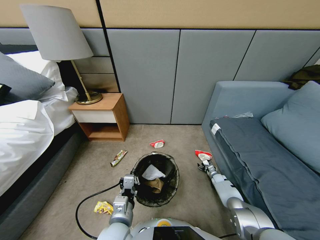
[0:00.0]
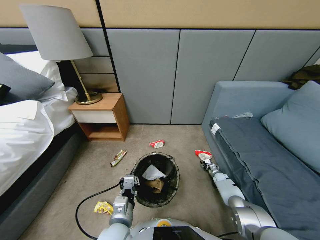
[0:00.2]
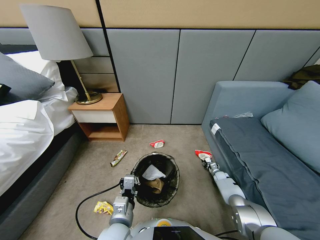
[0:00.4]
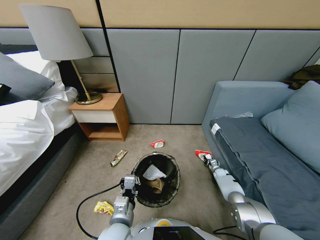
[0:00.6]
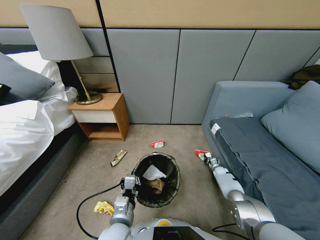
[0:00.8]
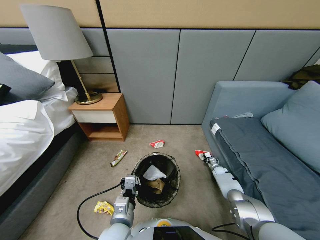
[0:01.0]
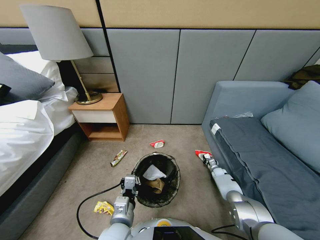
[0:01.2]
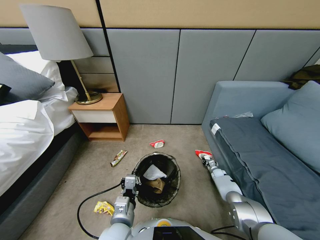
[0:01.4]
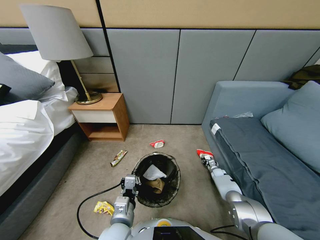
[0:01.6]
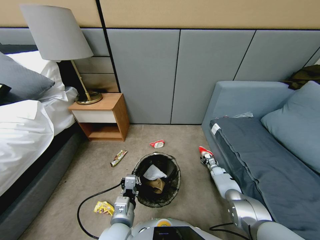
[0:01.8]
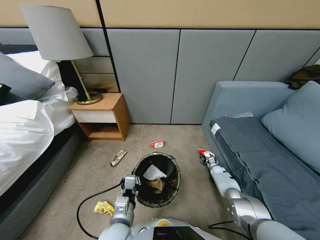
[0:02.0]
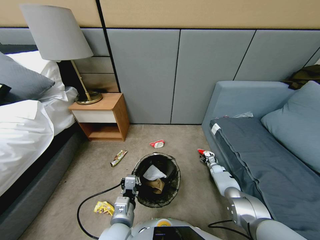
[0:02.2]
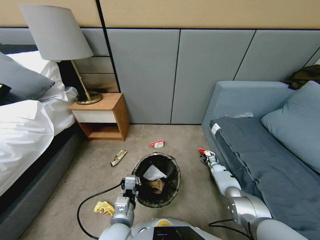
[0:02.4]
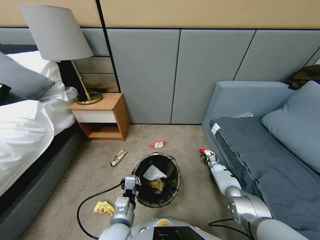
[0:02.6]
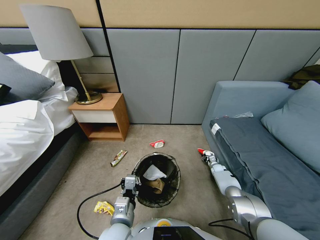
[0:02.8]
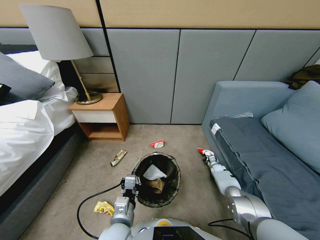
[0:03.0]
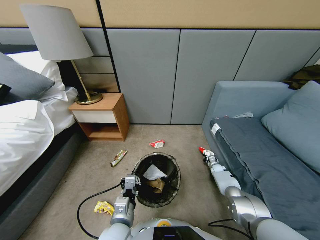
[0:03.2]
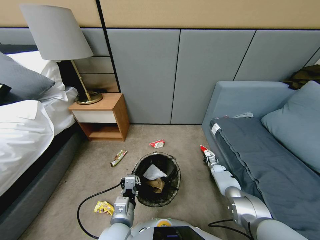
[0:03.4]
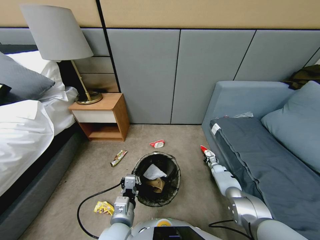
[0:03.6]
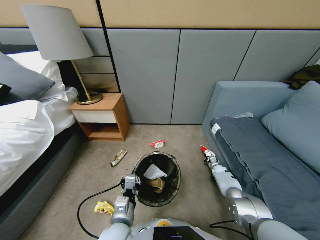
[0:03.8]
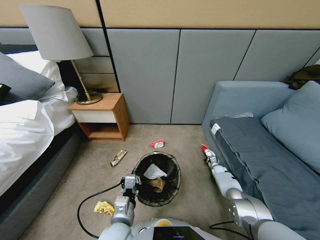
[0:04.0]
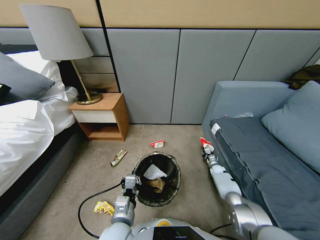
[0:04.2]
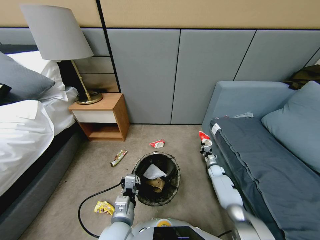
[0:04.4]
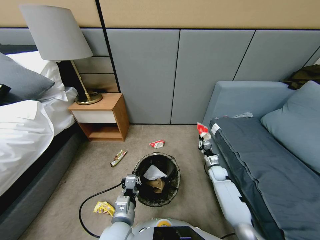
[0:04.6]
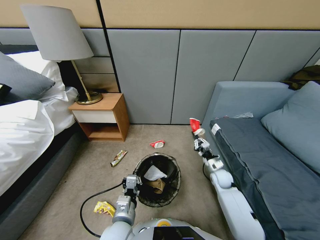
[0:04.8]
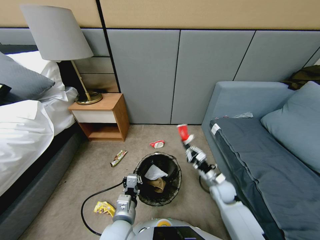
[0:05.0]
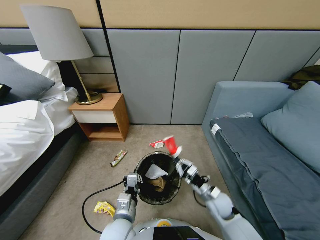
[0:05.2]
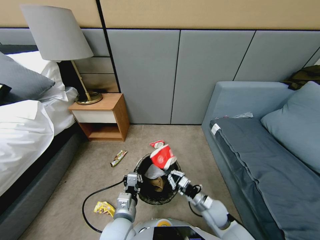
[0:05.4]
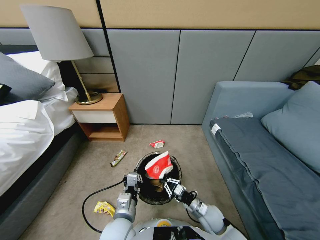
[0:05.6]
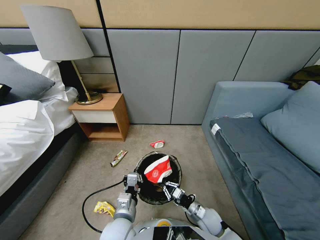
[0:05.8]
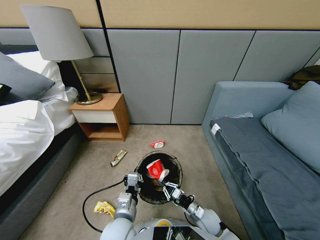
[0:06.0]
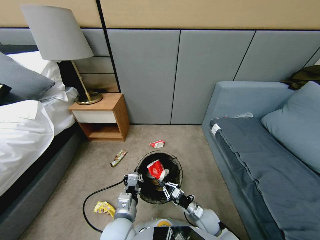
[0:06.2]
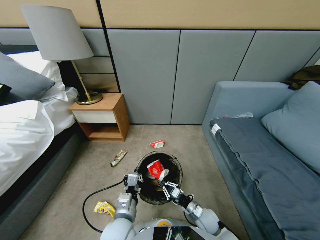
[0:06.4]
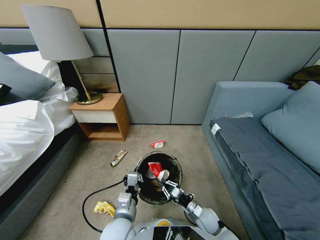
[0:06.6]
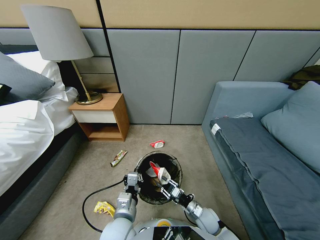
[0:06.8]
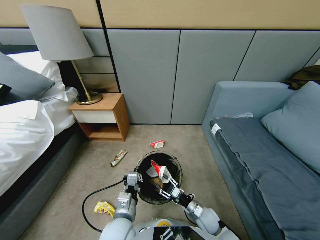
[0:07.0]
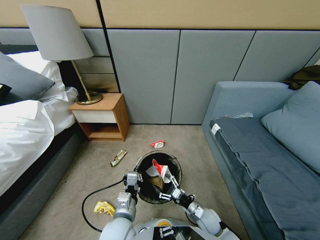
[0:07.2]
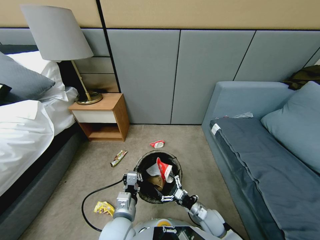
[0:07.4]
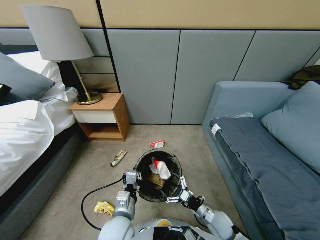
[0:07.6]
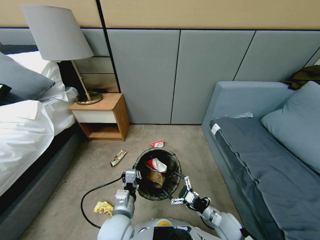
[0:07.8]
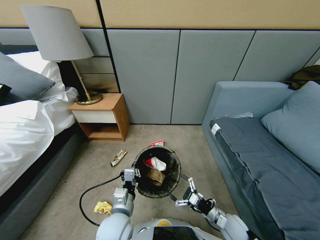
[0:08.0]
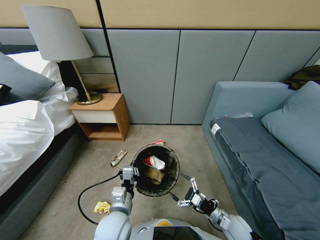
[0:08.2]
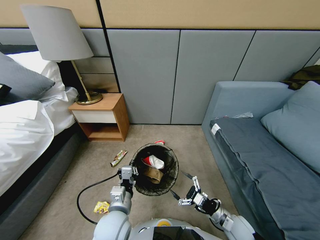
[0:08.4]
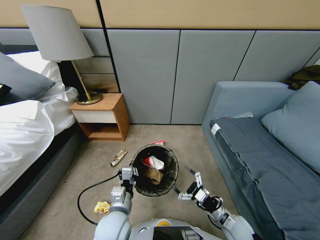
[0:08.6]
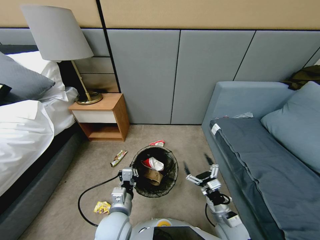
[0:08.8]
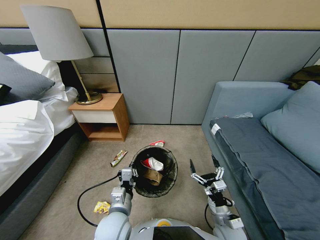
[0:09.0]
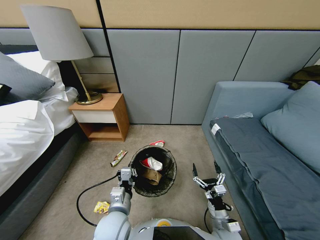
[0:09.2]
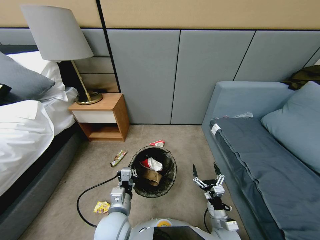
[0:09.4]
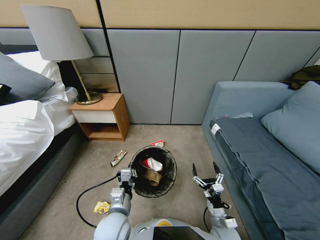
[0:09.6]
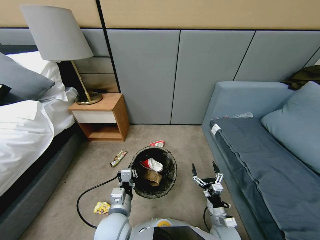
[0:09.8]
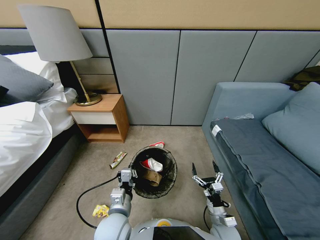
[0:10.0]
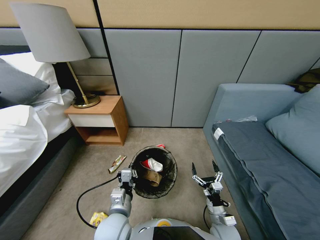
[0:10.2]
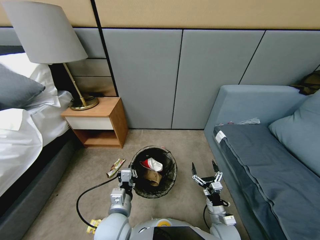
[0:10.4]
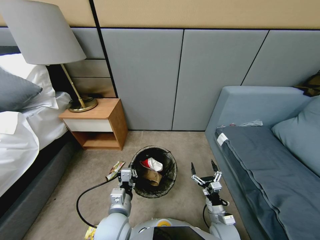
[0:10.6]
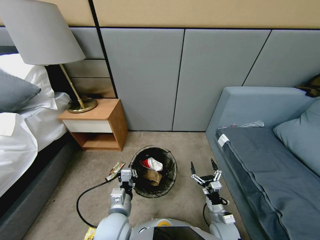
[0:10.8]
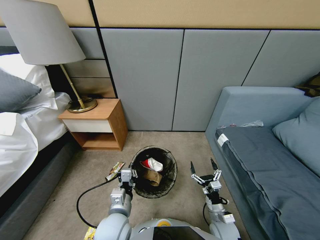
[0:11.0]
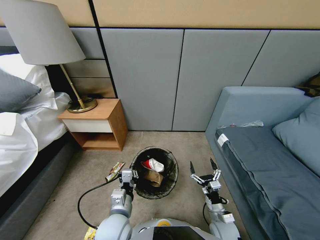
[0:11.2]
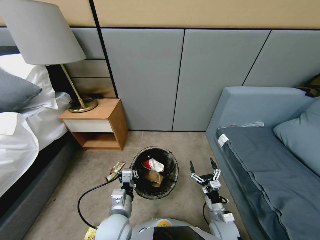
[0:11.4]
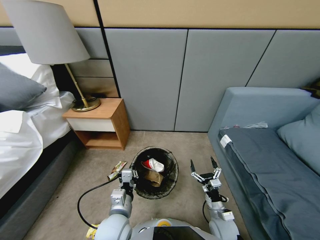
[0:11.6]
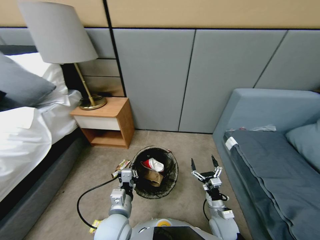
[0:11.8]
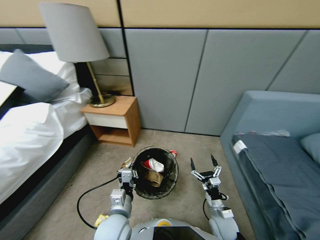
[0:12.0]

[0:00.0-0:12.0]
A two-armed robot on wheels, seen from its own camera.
Task of the whole recording: Pick up the trash bin, then pick up the garbage from the floor and place it into the trash bin.
0:00.0 to 0:01.6: The right gripper closes, then opens again.
0:01.6 to 0:03.0: The right gripper closes its fingers.
0:03.0 to 0:04.4: The right gripper shifts some 10 cm upward, to the left and backward.
0:04.4 to 0:06.0: The right gripper moves backward and to the left, some 25 cm.
0:06.0 to 0:07.6: The right gripper heads to the right, covering roughly 5 cm, and opens.
0:09.0 to 0:10.4: The grippers make only small movements.

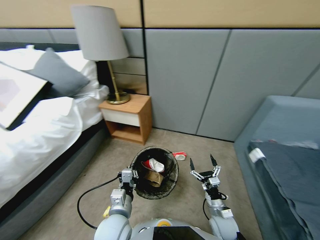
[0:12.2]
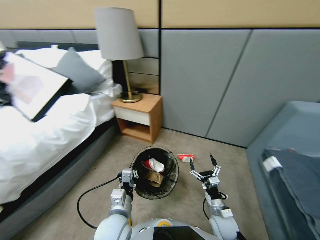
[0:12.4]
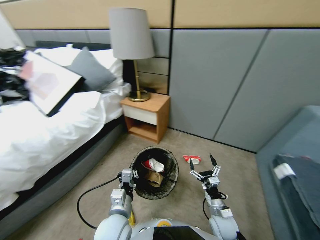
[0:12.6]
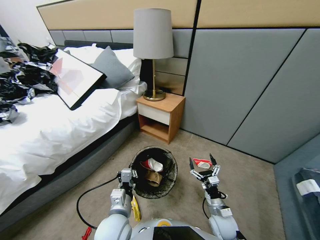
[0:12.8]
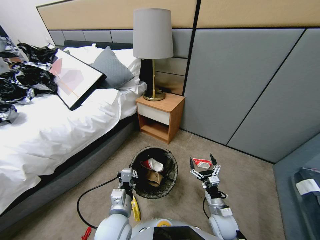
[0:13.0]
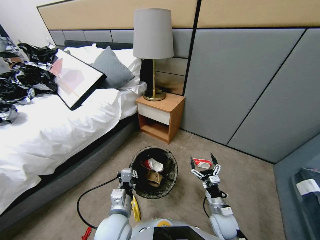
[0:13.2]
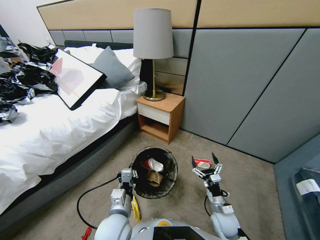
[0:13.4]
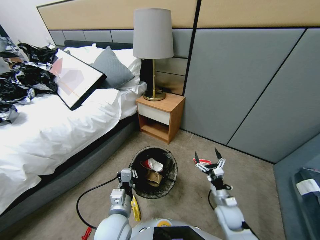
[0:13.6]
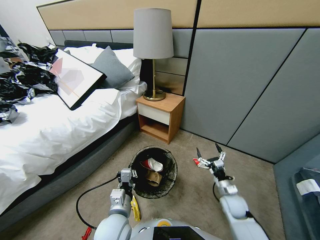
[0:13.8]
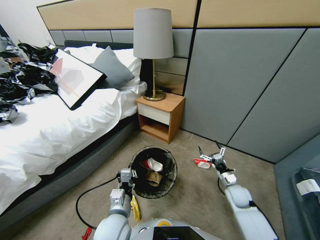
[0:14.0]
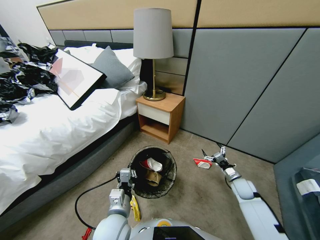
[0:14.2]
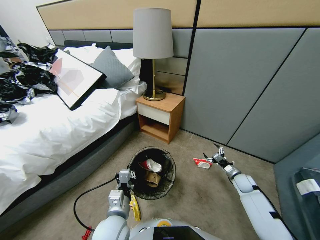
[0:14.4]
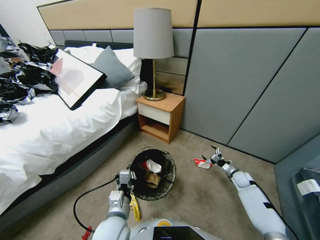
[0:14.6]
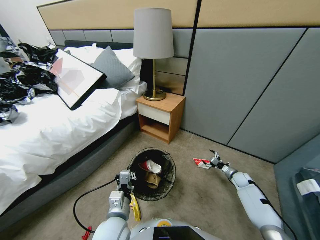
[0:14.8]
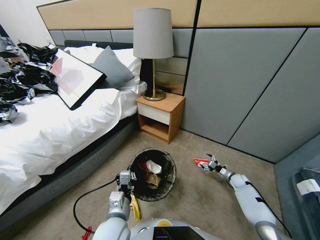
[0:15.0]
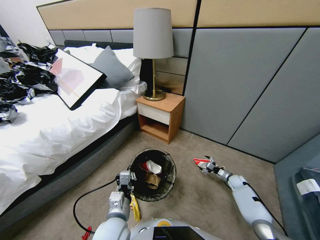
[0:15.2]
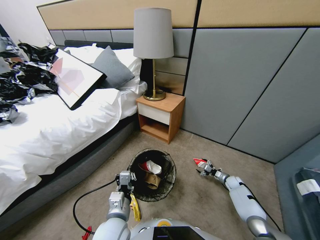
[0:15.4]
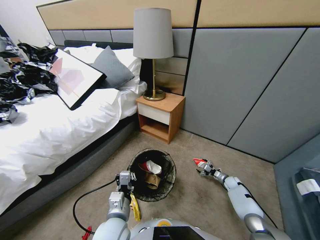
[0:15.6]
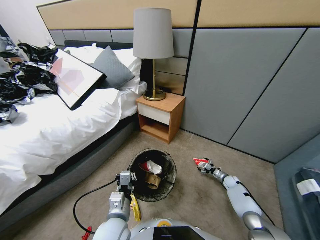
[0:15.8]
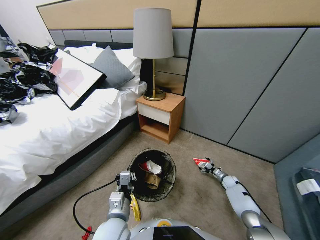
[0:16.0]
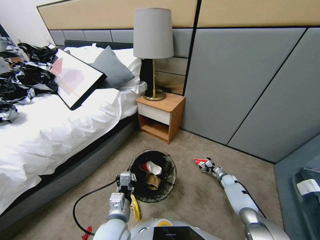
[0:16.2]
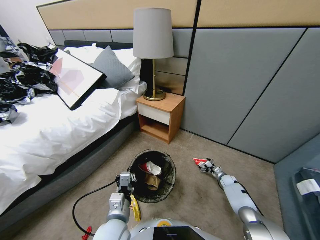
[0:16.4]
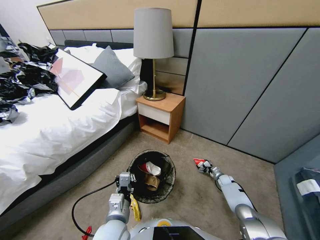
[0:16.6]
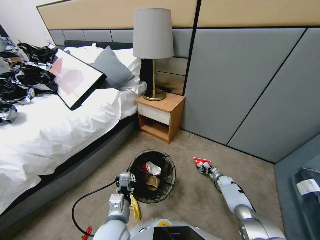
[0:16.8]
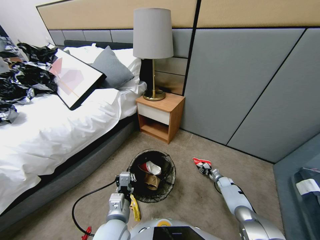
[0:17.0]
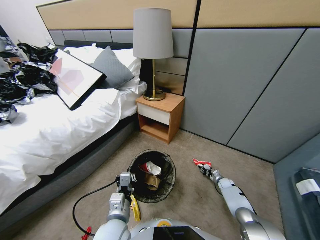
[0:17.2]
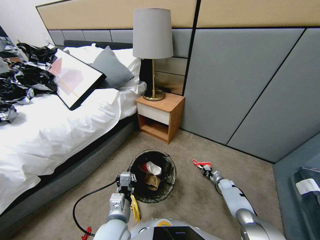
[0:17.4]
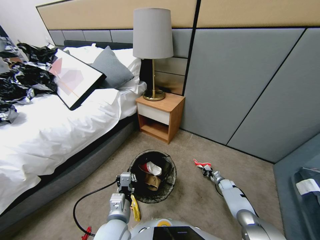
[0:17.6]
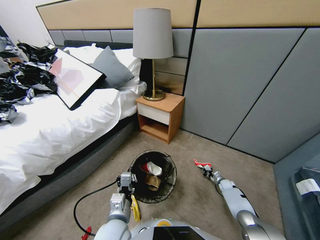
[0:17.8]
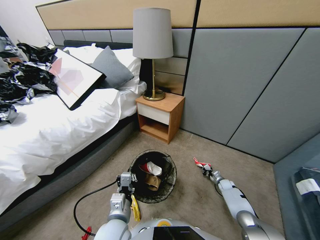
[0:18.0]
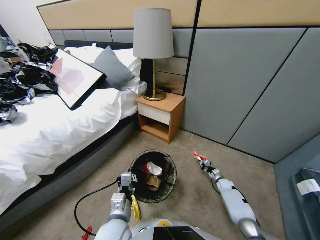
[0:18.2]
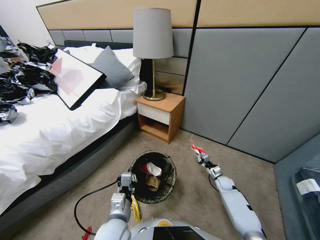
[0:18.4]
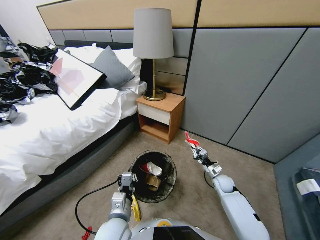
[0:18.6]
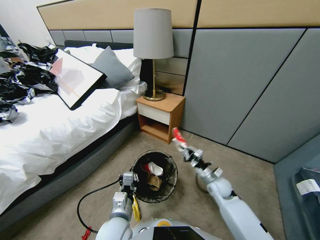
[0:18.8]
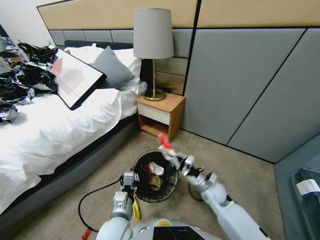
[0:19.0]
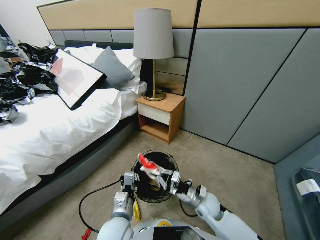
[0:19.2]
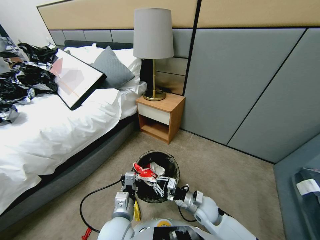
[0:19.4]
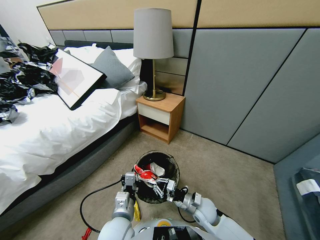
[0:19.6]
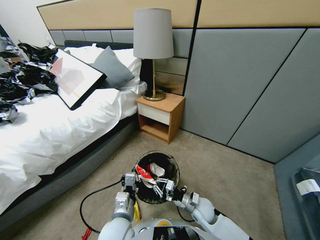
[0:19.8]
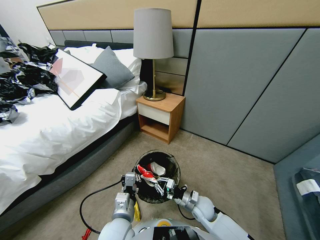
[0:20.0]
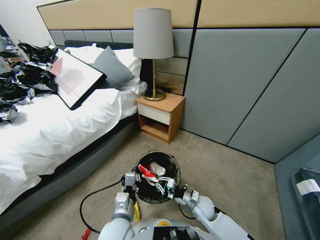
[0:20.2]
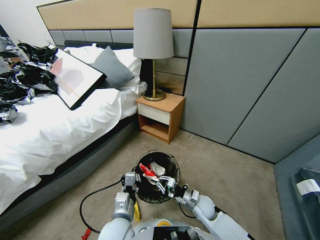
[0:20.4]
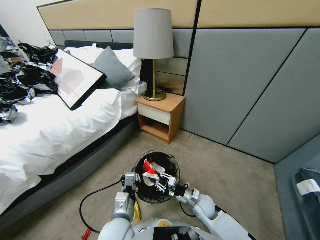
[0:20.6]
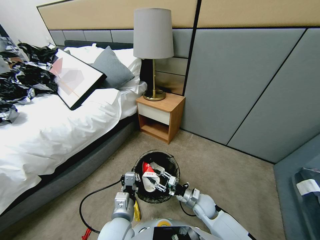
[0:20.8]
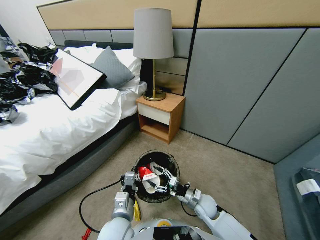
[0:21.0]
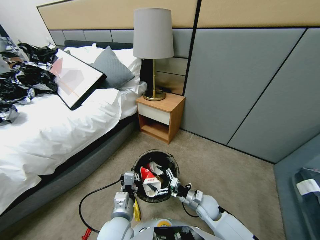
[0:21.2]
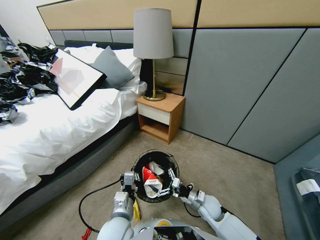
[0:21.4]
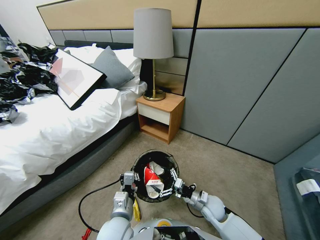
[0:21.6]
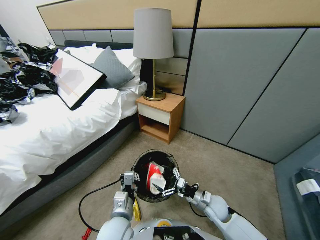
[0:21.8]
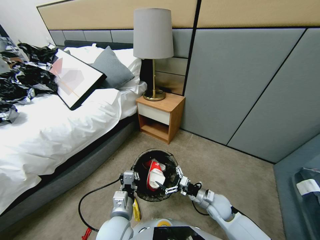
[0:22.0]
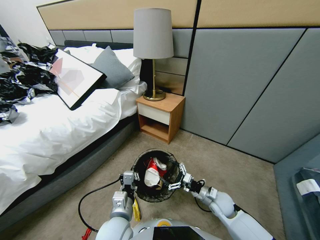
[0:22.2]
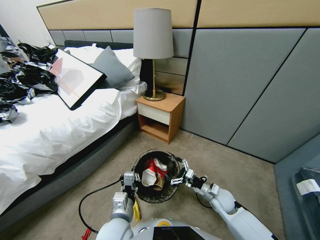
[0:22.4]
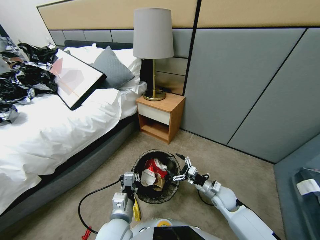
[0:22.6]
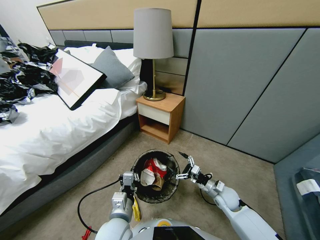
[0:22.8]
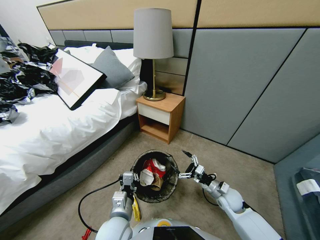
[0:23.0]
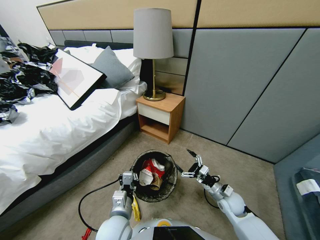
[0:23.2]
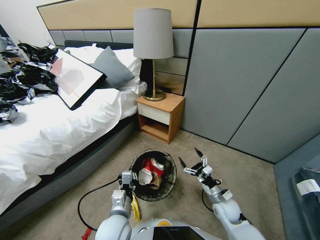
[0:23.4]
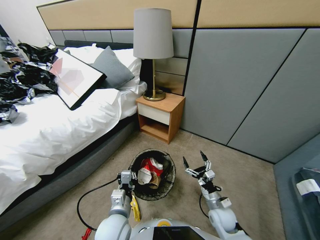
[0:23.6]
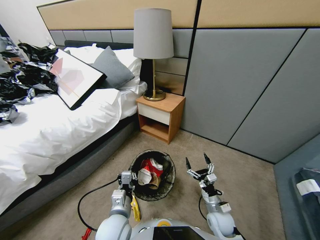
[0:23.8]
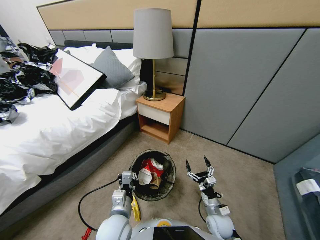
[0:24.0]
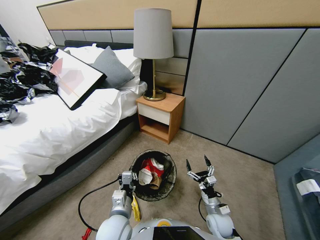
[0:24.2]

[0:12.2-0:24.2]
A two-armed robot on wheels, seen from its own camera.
Task of the whole recording: Pick up the trash bin, then pick up the garbage from the floor and place it into the trash bin.
0:12.2 to 0:13.8: The right gripper heads to the right and forward, covering roughly 15 cm.
0:13.8 to 0:15.2: The right gripper is displaced downward, to the right and forward by roughly 20 cm.
0:15.2 to 0:16.6: The right gripper changes place by roughly 5 cm.
0:16.6 to 0:18.2: The right gripper closes its fingers.
0:18.2 to 0:19.8: The right gripper travels to the left, backward and upward by roughly 30 cm.
0:19.8 to 0:21.2: The right gripper opens.
0:21.2 to 0:22.6: The right gripper goes some 10 cm to the right.
0:22.6 to 0:24.2: The right gripper travels backward and downward by approximately 10 cm.
